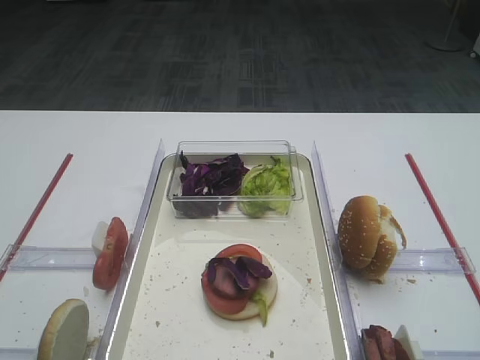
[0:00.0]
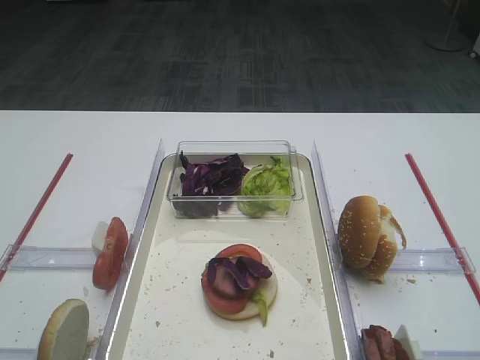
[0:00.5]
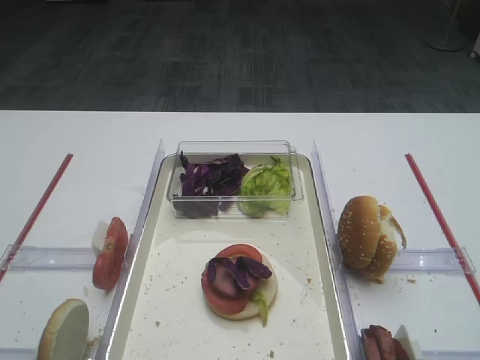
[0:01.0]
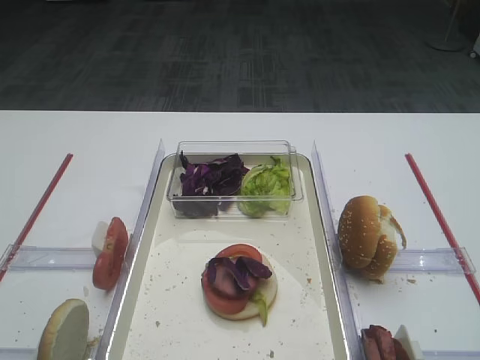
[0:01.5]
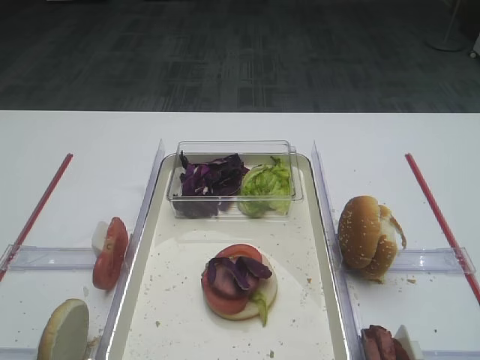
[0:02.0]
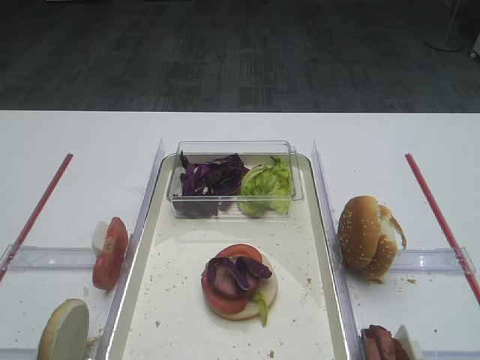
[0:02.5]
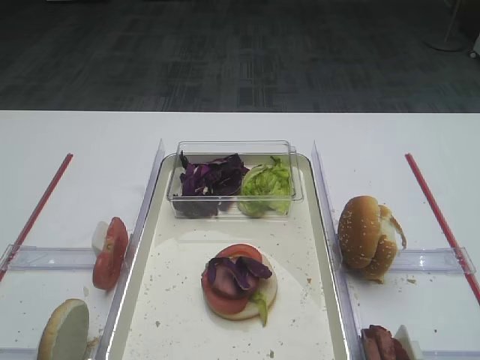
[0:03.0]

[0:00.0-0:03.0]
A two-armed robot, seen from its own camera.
0:00.0 to 0:03.0: The two grippers keep their place.

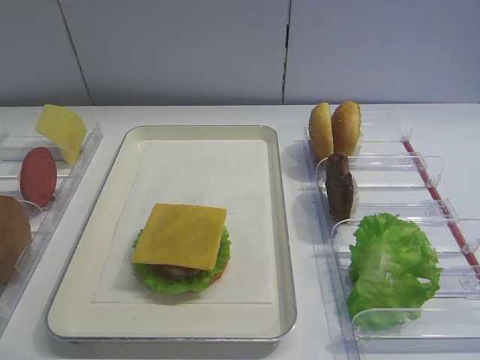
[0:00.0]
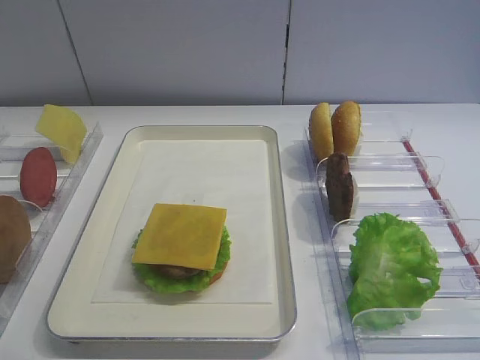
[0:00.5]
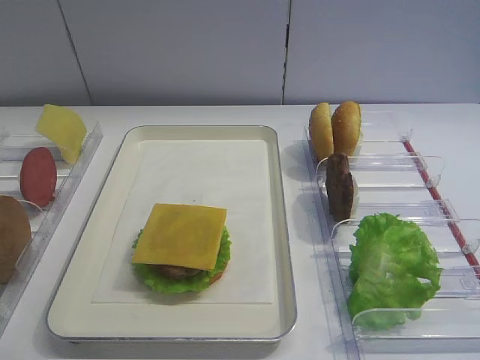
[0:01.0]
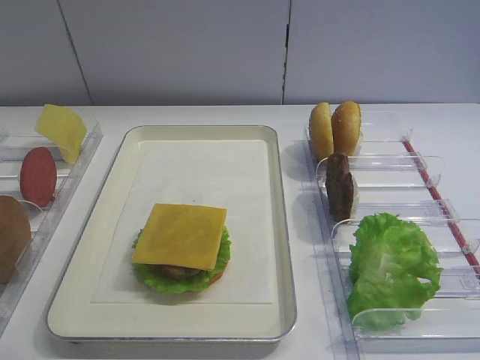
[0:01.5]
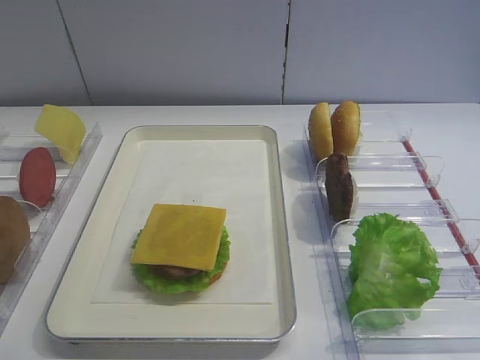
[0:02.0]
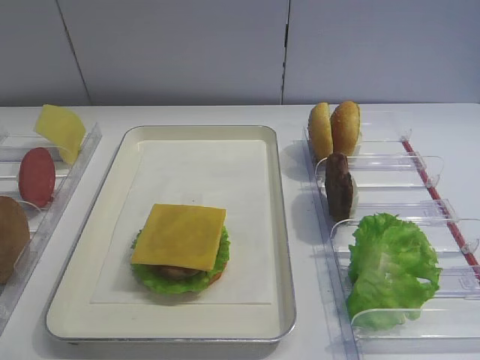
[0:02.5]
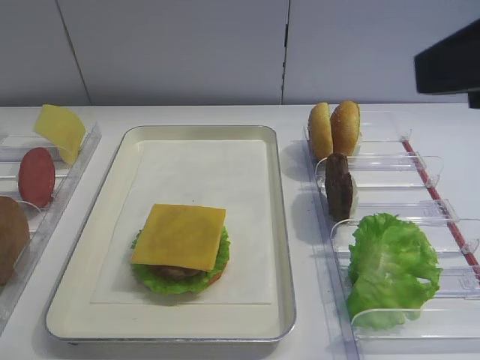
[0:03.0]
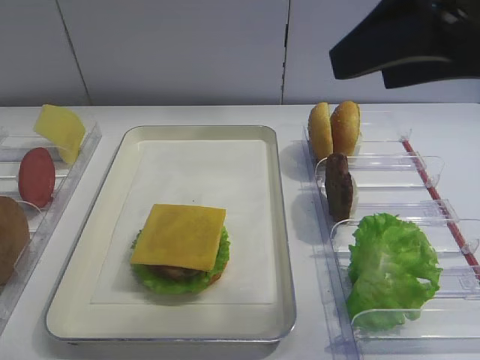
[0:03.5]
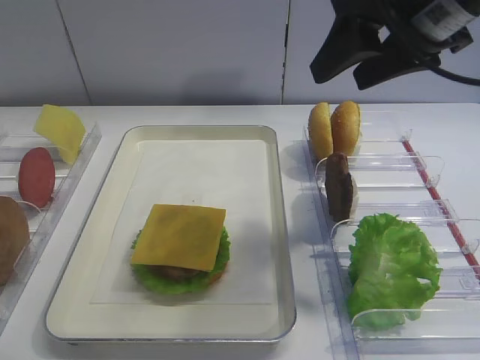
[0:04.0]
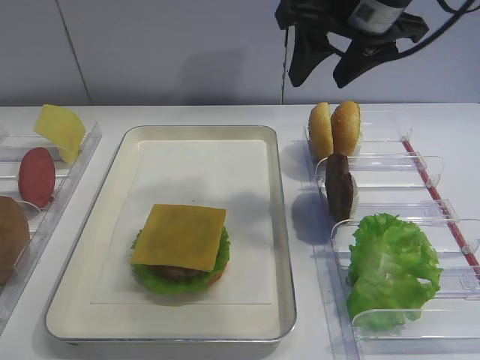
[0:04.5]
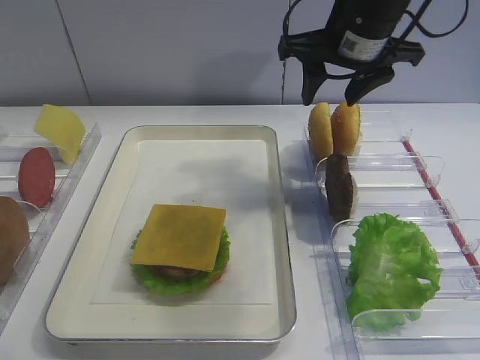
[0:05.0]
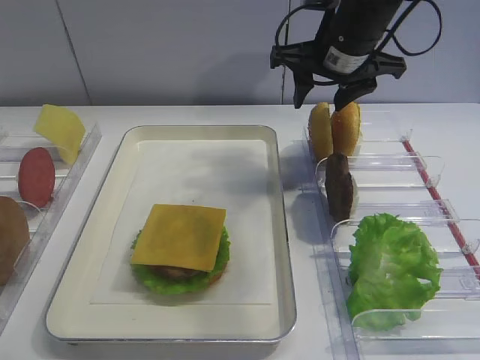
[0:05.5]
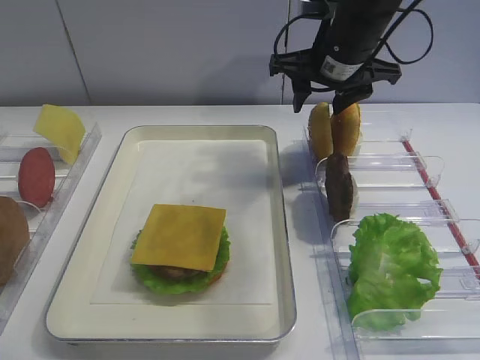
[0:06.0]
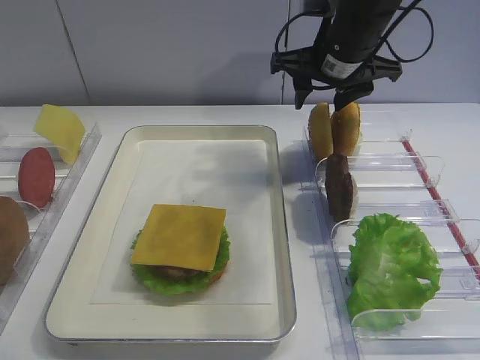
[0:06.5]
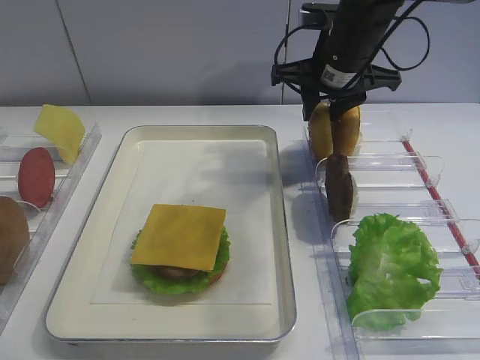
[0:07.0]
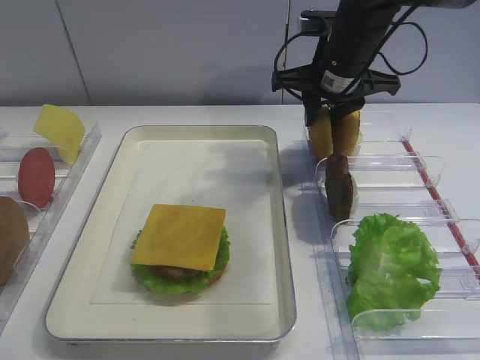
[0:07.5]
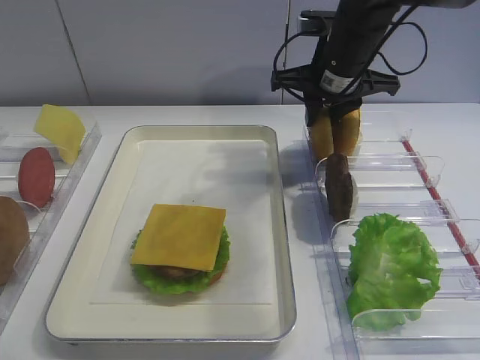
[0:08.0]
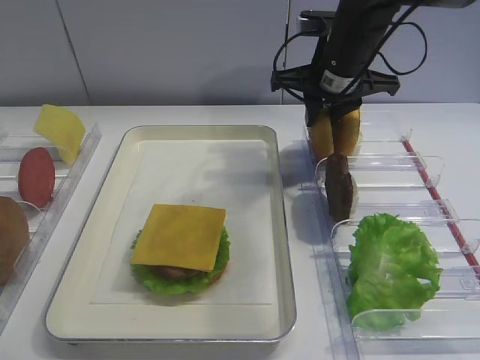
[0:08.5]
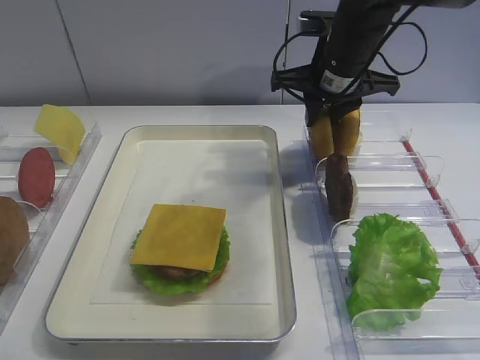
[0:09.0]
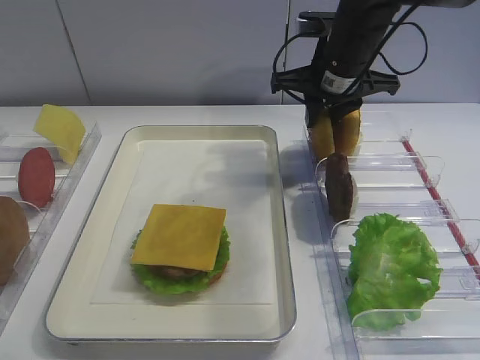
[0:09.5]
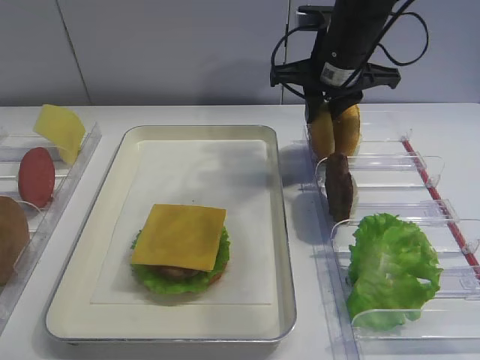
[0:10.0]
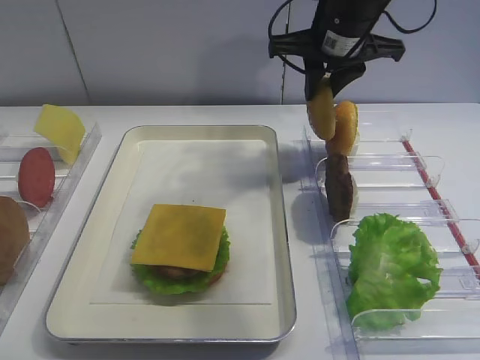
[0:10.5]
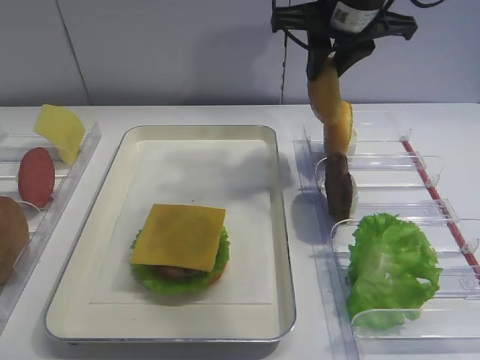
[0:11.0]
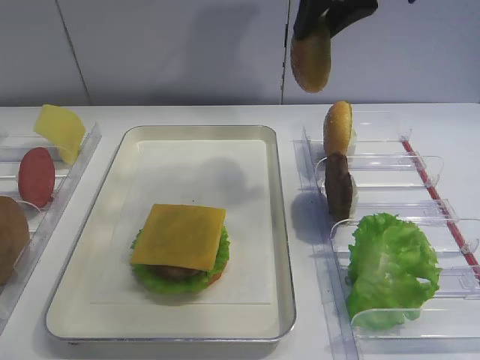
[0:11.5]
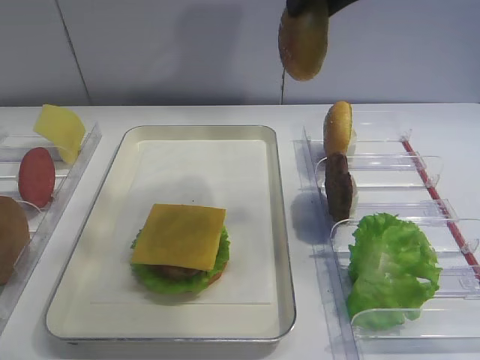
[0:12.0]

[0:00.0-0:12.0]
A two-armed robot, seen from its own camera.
Step, 0:00.0 to 0:10.0: Pick up the hamburger lid with the right gripper.
0:02.0 to 0:04.0: The right gripper travels forward by approximately 30 cm.
0:04.0 to 0:06.0: The right gripper is displaced forward and downward by approximately 15 cm.
0:06.0 to 0:08.0: The right gripper closes up.
0:08.0 to 0:10.0: Neither gripper changes place.
0:10.0 to 0:12.0: The right gripper moves upward and backward, roughly 20 cm.

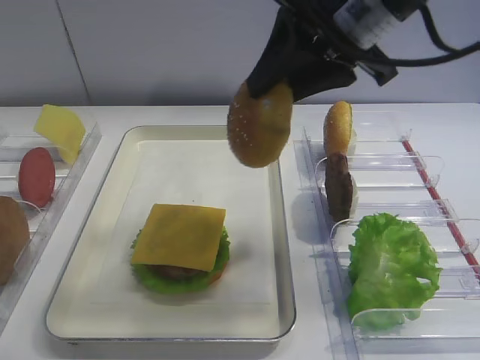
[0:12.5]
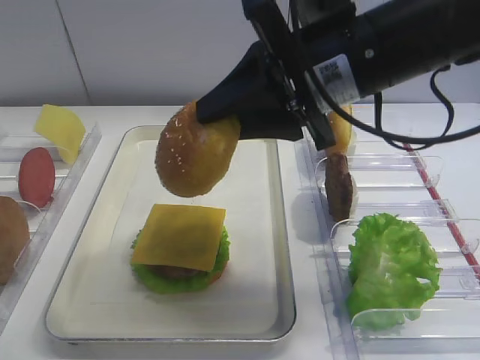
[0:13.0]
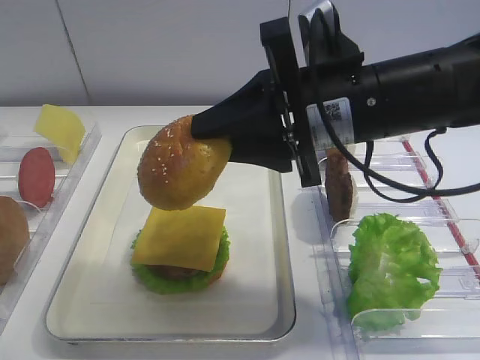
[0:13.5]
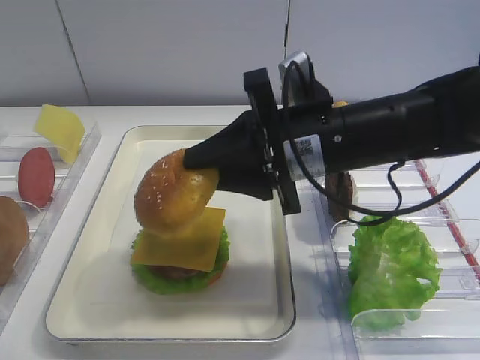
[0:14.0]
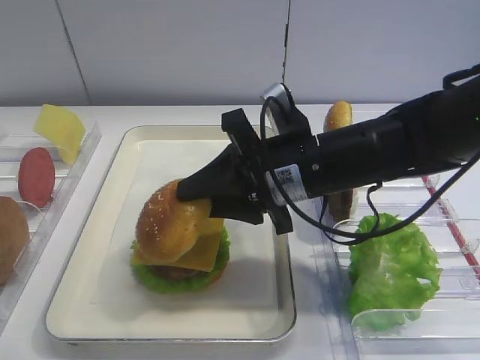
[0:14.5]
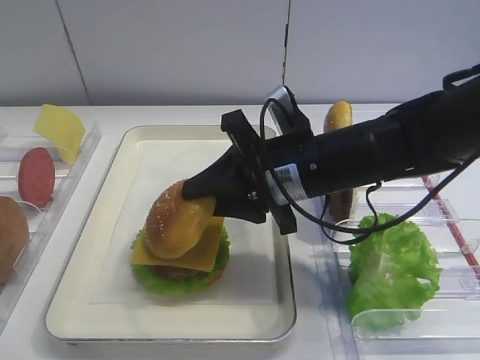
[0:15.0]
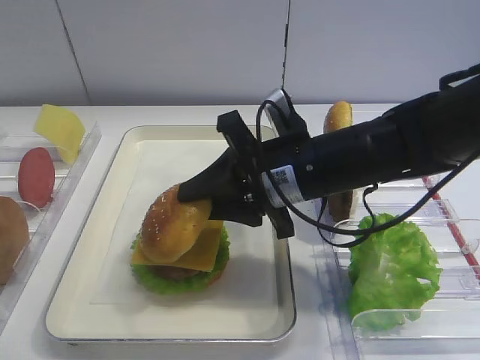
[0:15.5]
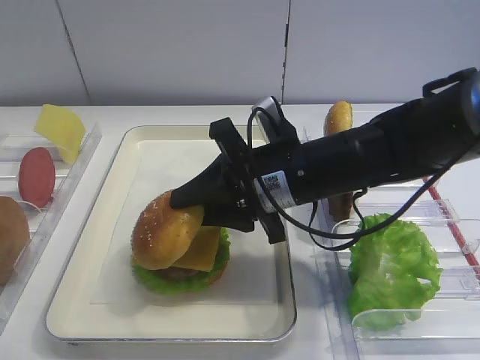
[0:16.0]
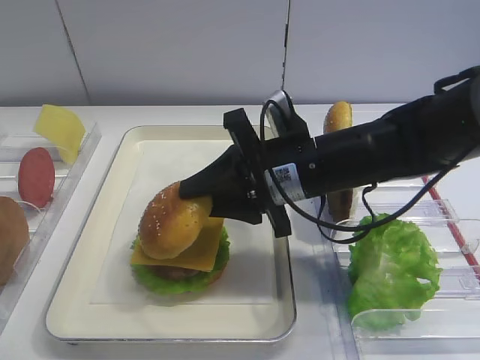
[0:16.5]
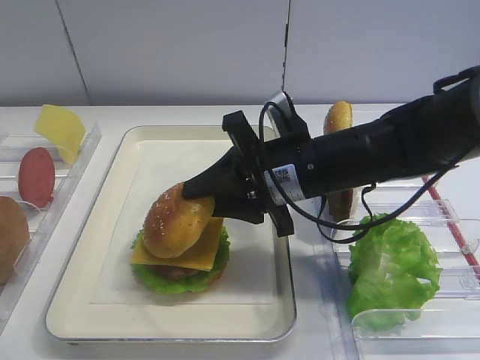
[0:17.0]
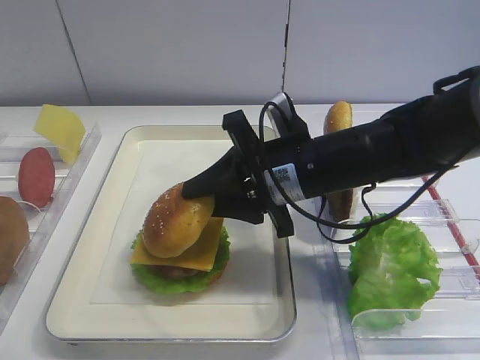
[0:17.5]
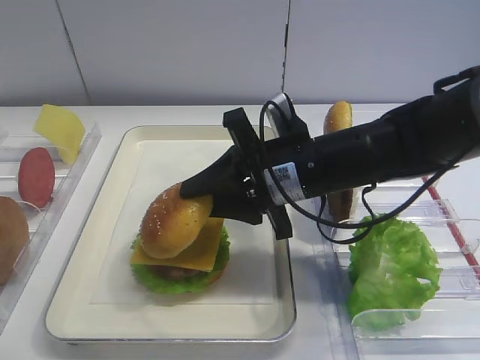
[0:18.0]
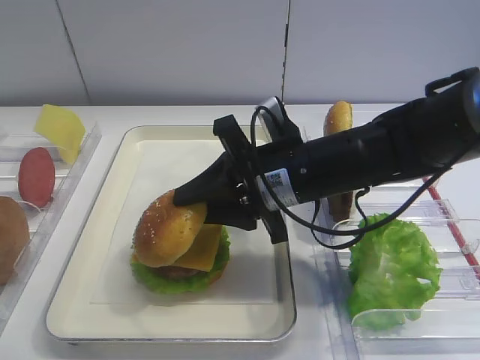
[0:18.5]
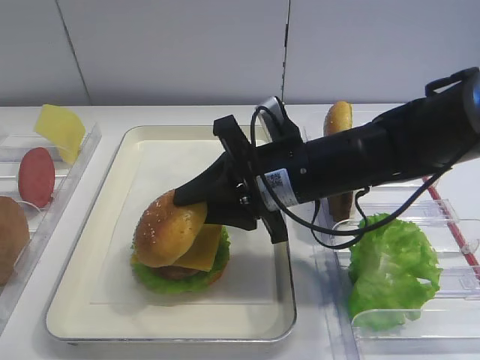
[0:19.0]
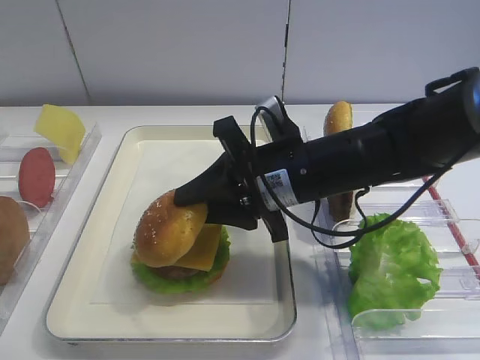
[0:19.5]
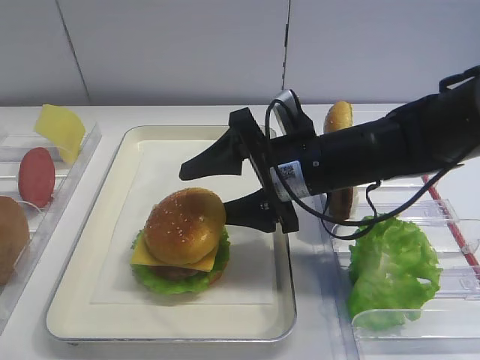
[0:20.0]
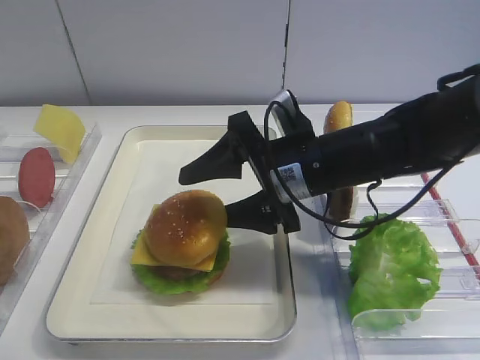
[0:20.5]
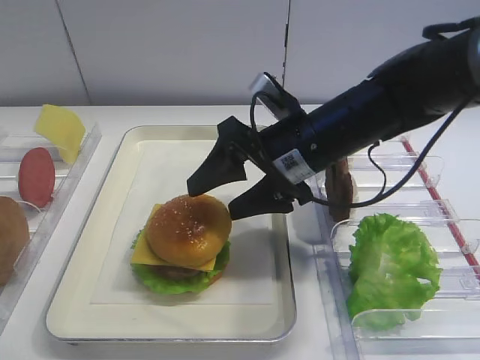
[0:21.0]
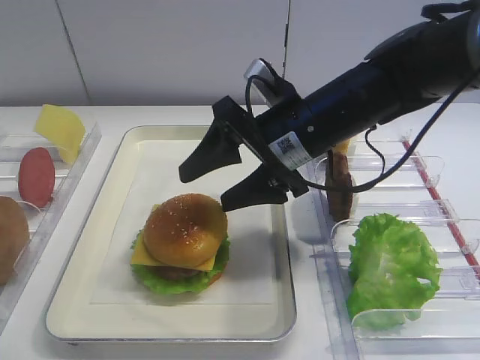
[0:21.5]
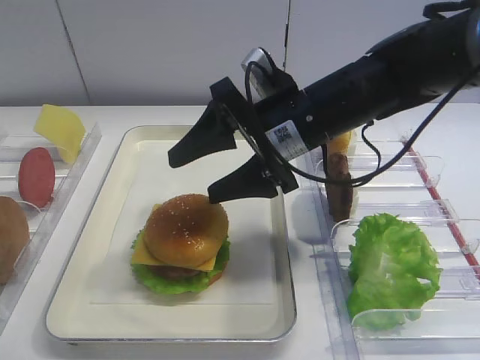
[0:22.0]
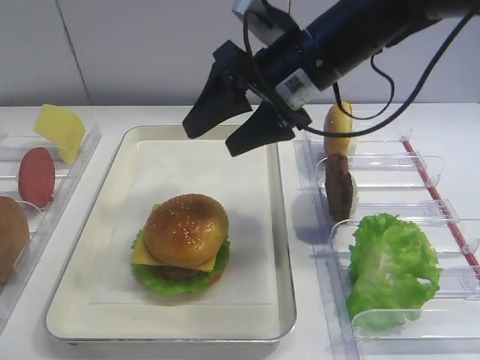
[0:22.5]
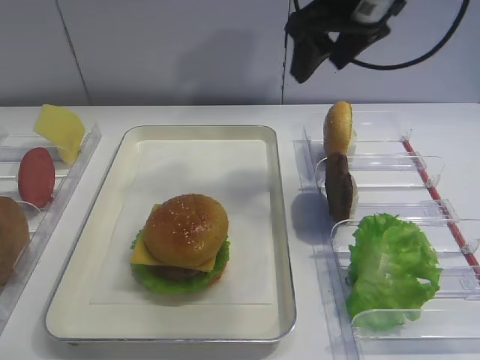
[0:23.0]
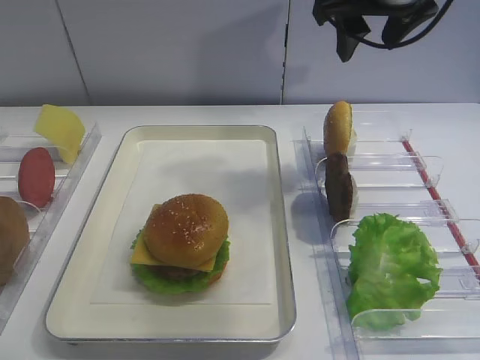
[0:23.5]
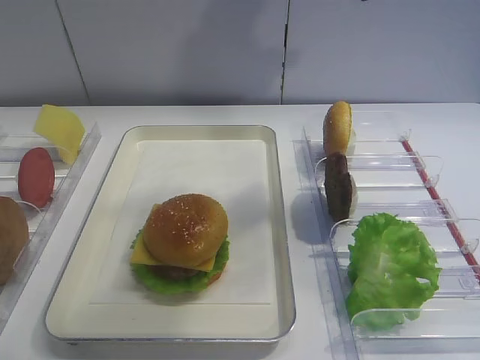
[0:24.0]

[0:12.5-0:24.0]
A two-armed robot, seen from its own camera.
Step, 0:12.5 to 0:21.0: Place the hamburger lid on the cheese slice with the right gripper.
0:12.5 to 0:14.5: The right gripper is displaced downward by about 15 cm.
0:14.5 to 0:16.5: The grippers stay close to where they were, moving slightly.
0:16.5 to 0:18.5: Both grippers stay put.
0:18.5 to 0:20.0: The right gripper opens.
0:22.0 to 0:24.0: The right gripper heads upward and to the right, covering some 20 cm.
